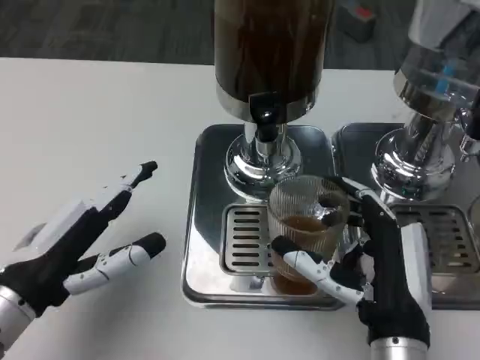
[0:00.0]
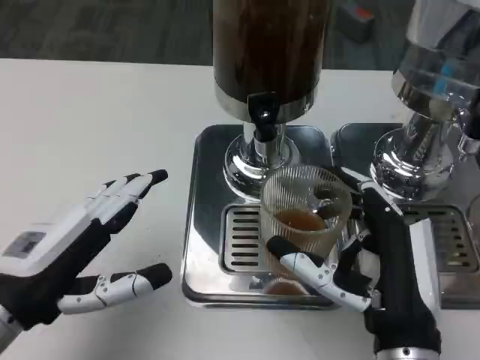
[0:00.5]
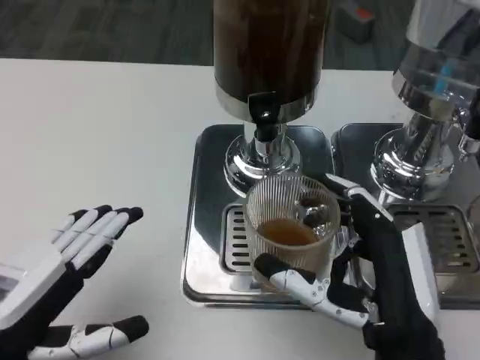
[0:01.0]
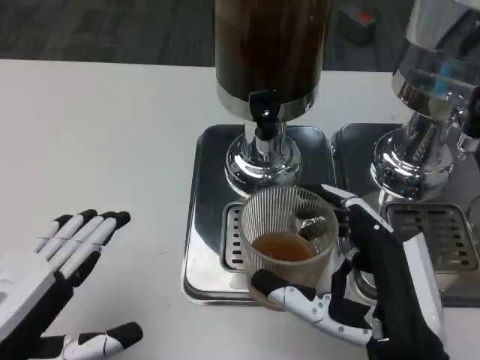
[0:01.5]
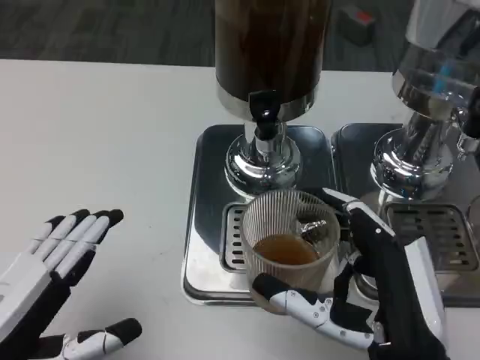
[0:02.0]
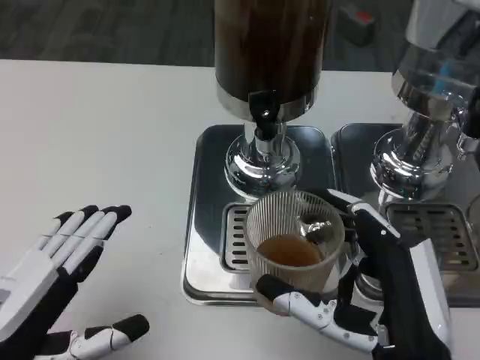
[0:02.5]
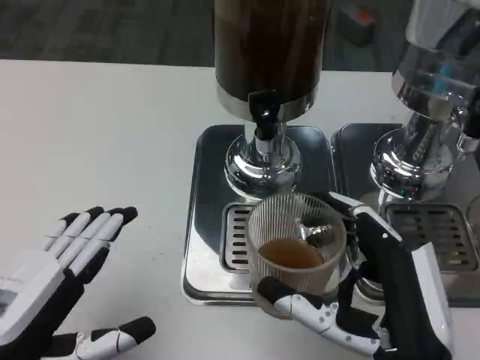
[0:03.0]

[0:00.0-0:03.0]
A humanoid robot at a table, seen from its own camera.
Task of the whole recording: Grasp the cup under the faucet to collect the drink, then remove the cup.
0:00.0 to 0:01.5: The right hand ends up approximately 5 cm from where it was. The left hand moves backward, some 10 cm.
0:01.5 to 0:03.0: The hands make only small movements.

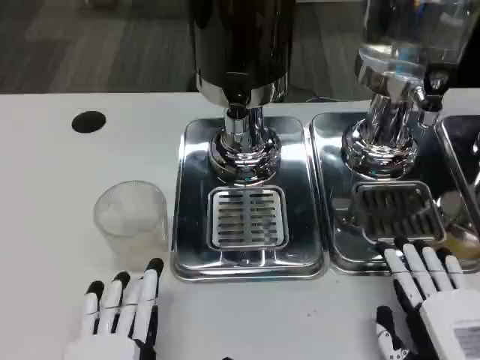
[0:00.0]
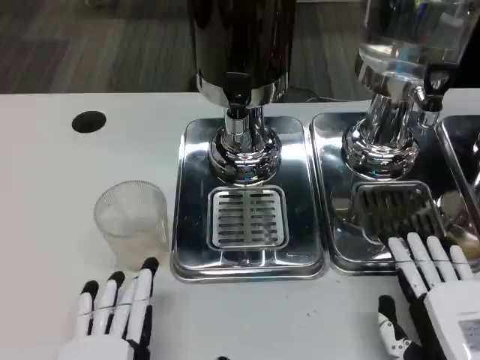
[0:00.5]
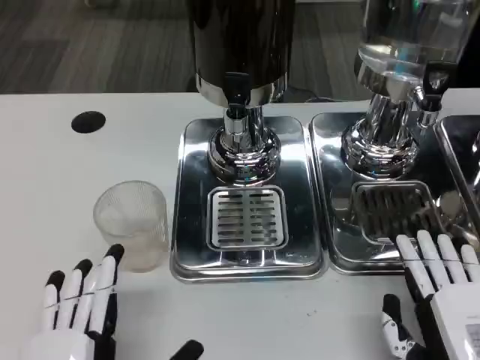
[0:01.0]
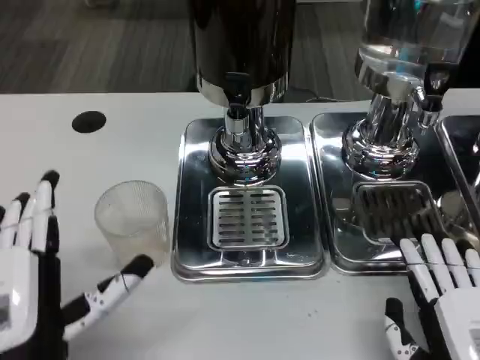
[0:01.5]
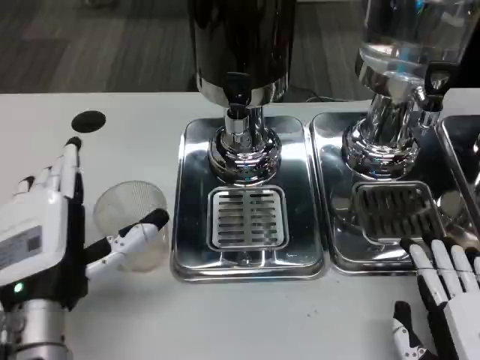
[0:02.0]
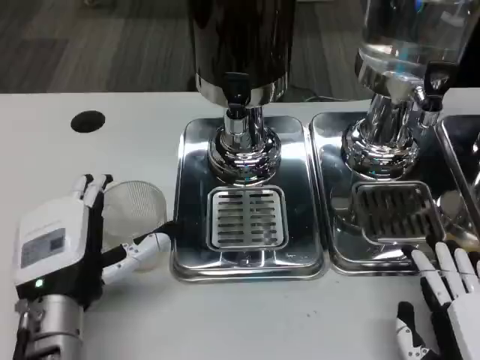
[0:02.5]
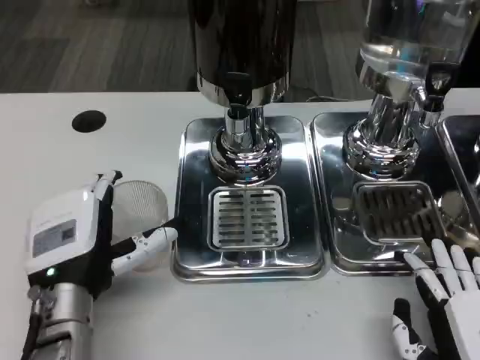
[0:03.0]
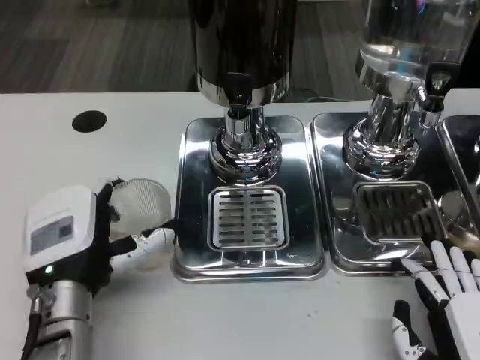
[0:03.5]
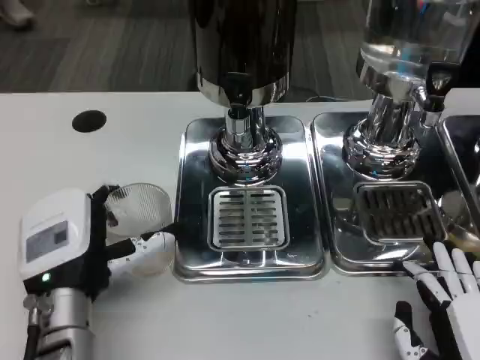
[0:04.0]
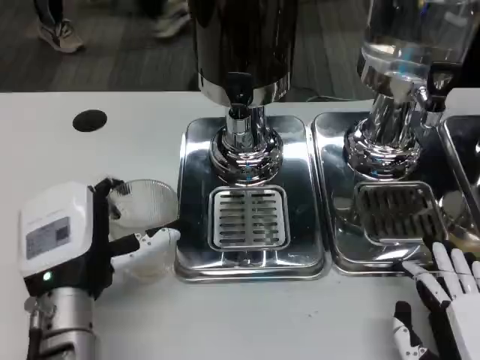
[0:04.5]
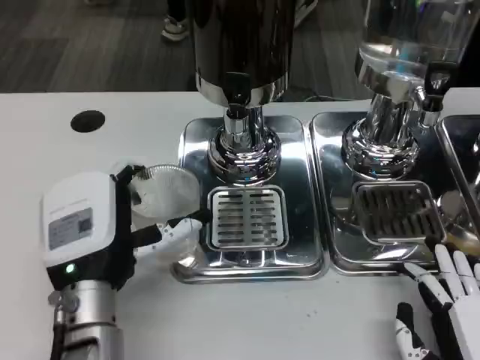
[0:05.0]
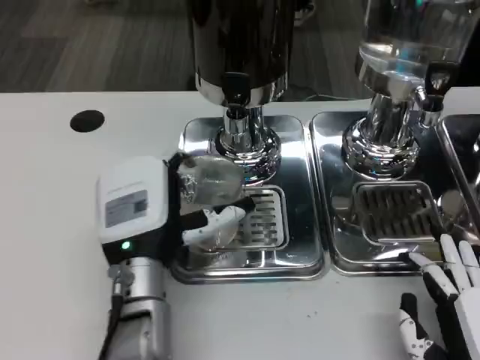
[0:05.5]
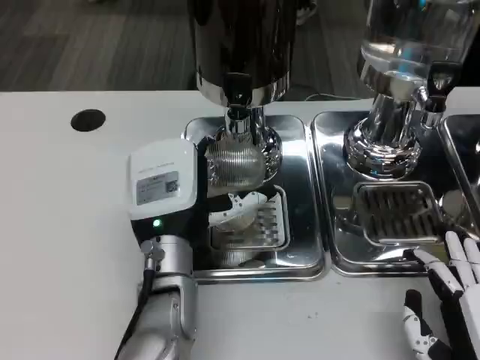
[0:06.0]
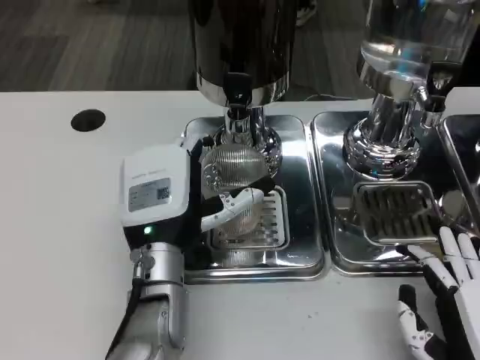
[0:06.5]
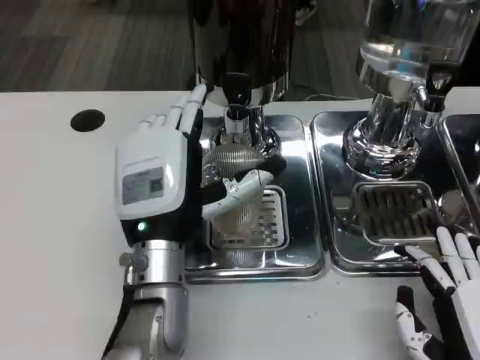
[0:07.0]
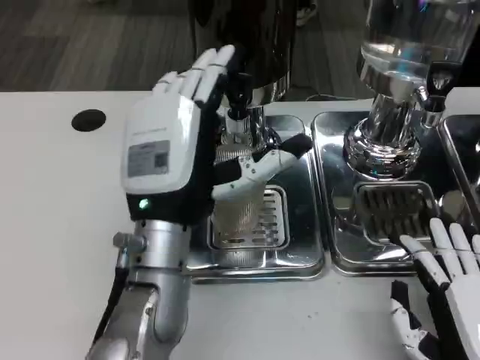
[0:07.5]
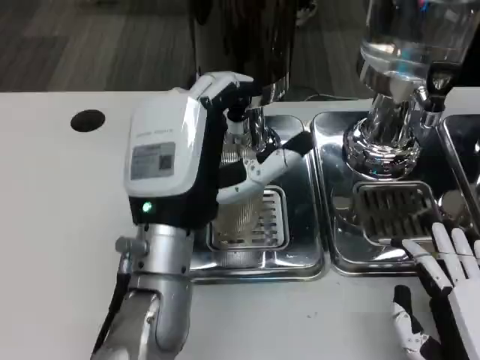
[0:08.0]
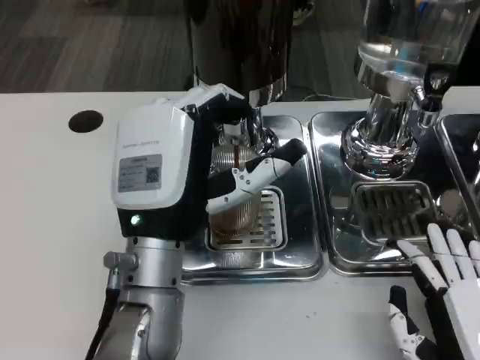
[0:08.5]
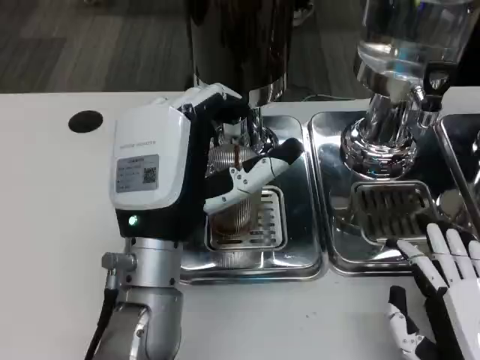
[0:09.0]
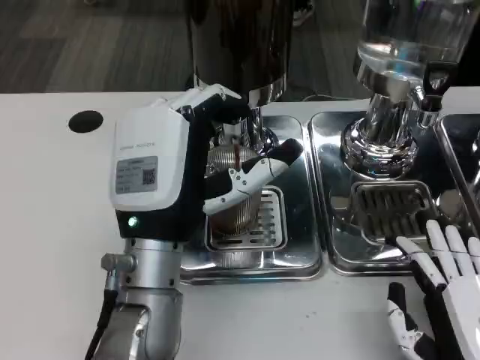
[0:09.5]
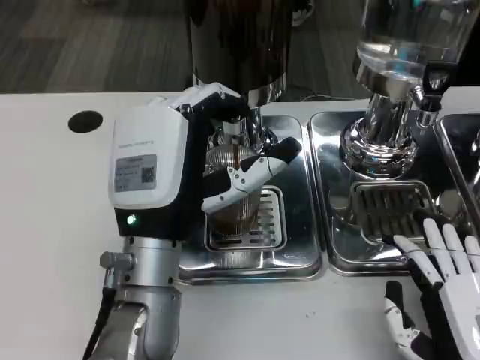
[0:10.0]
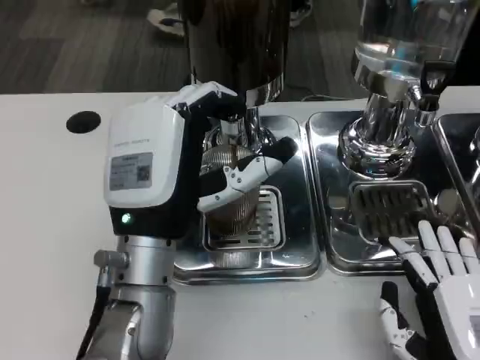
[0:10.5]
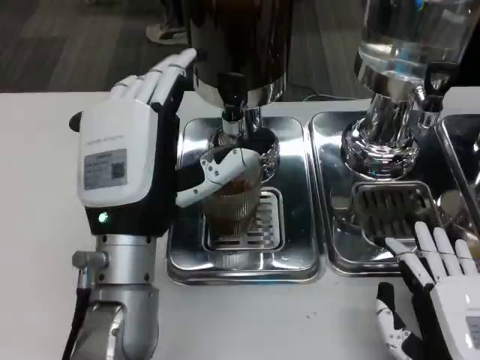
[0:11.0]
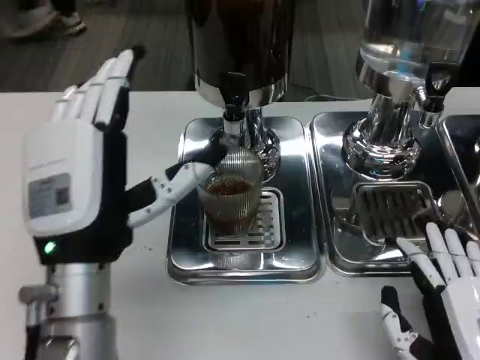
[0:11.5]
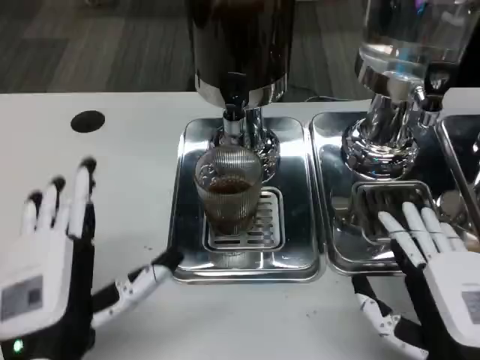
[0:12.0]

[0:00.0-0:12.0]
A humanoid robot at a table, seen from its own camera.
Task of the whole recording: Grasp the cup under the faucet to collect the drink, then remove the cup.
0:00.0 to 0:02.0: The left hand goes approximately 15 cm forward and upward.
0:02.0 to 0:04.0: The hands make only small movements.
0:04.0 to 0:06.0: The left hand goes roughly 10 cm to the right and forward.
0:06.0 to 0:08.0: The left hand goes roughly 5 cm upward.
0:10.0 to 0:12.0: The left hand moves backward and to the left, some 10 cm.

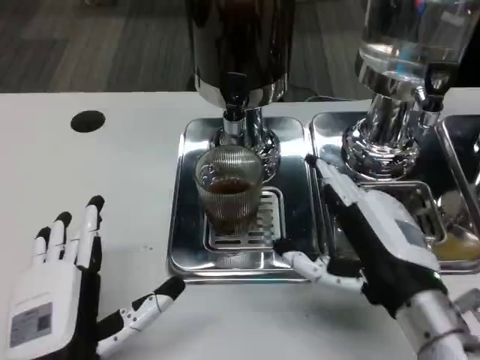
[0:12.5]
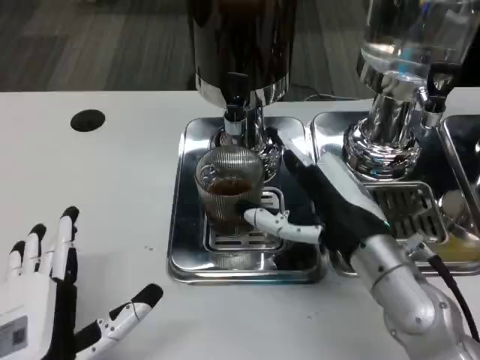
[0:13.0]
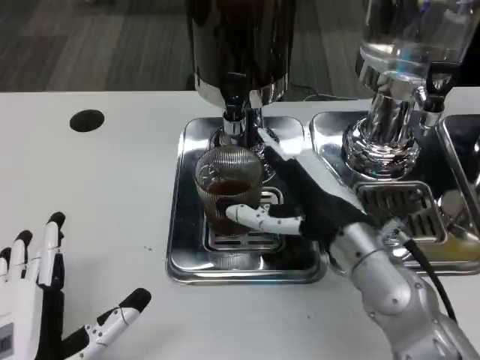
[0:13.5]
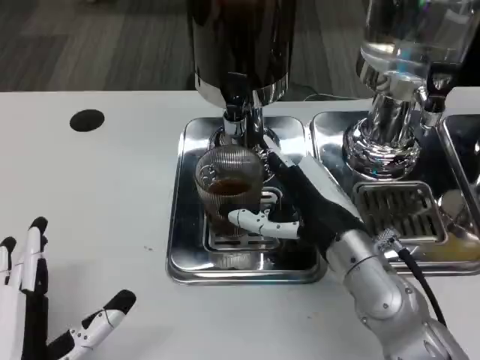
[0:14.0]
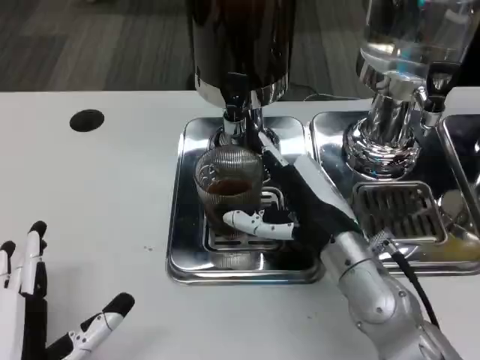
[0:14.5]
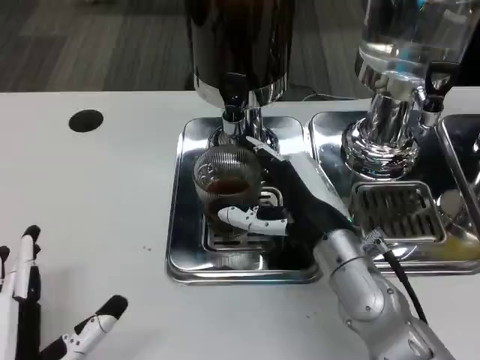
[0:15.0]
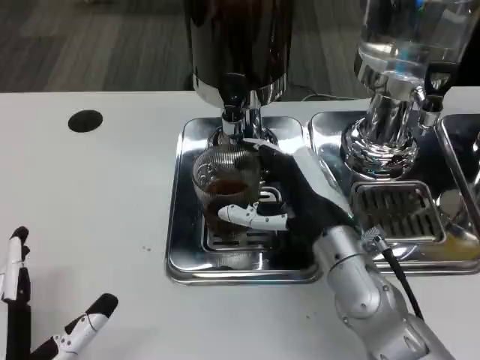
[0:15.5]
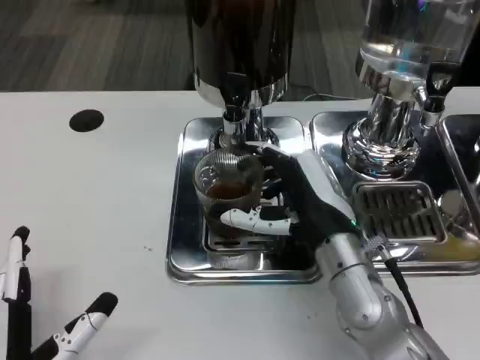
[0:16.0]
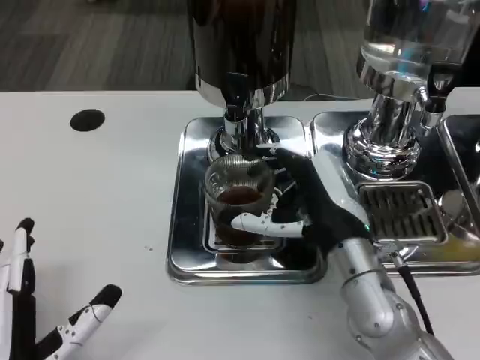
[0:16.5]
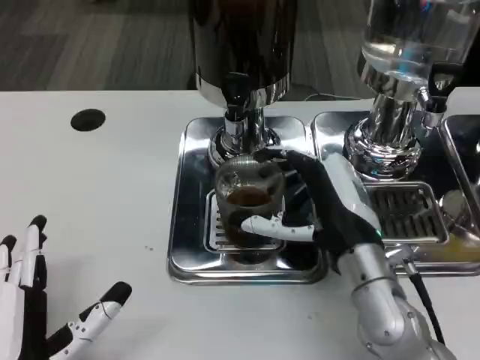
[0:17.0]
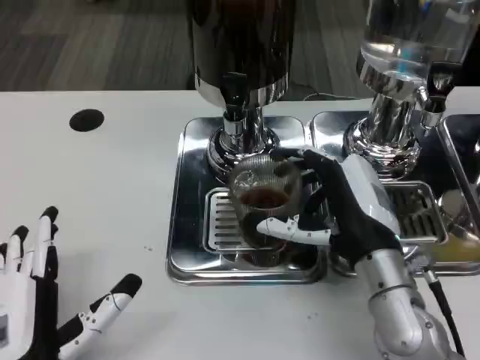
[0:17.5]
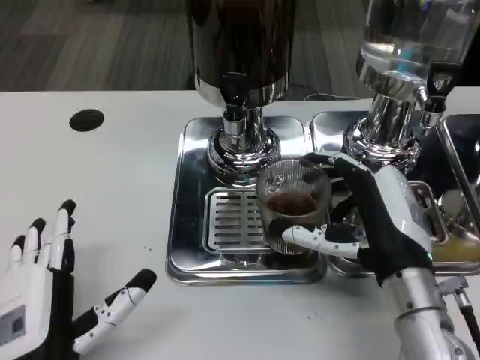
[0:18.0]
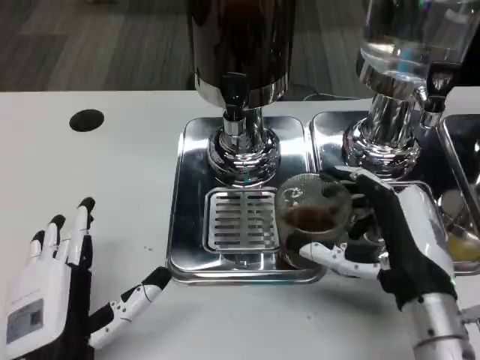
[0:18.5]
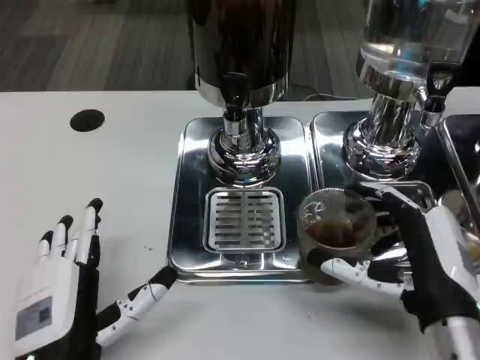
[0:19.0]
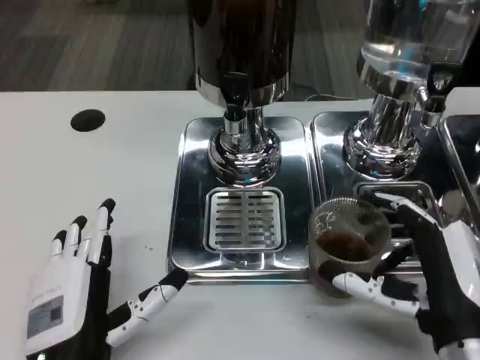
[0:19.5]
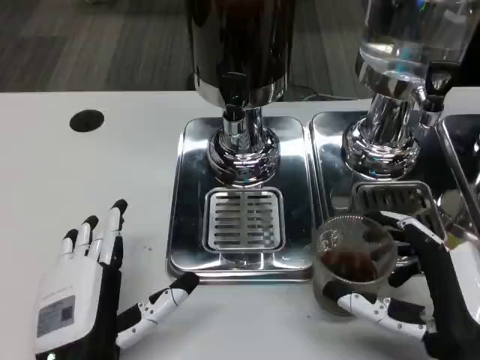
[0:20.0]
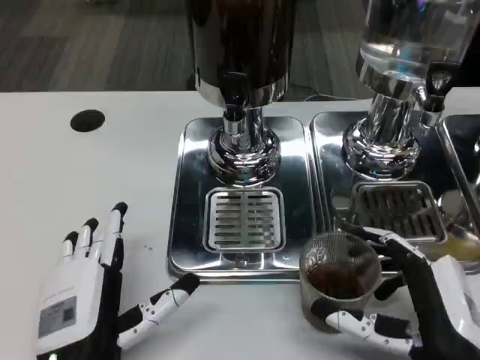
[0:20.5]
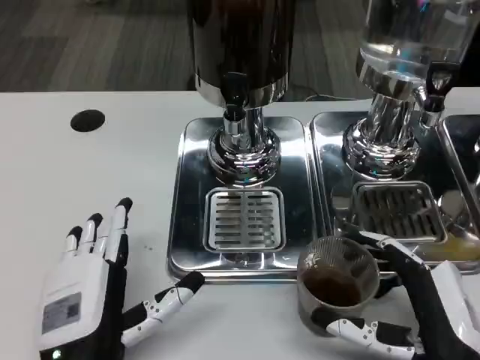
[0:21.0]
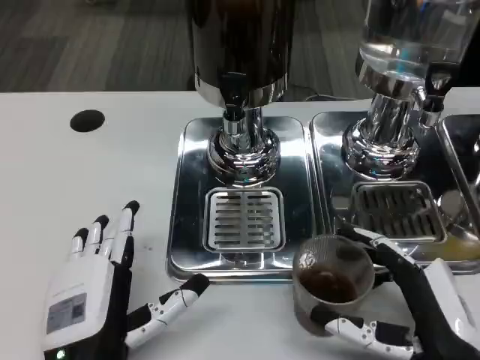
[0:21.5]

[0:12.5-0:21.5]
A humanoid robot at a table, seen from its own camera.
Task of the whole recording: Grasp the cup under the faucet to collect the drink, then remove the cup.
0:12.5 to 0:14.5: The right hand travels forward and to the left by about 10 cm.
0:14.5 to 0:17.0: The hands make only small movements.
0:17.0 to 0:19.5: The right hand is displaced backward and to the right by roughly 10 cm.

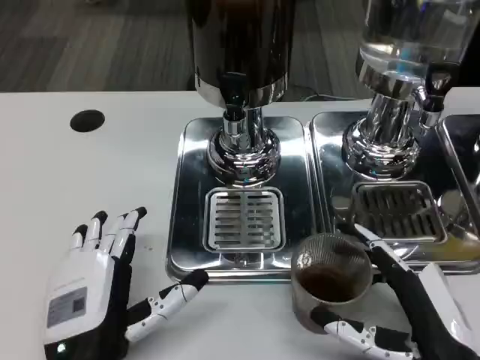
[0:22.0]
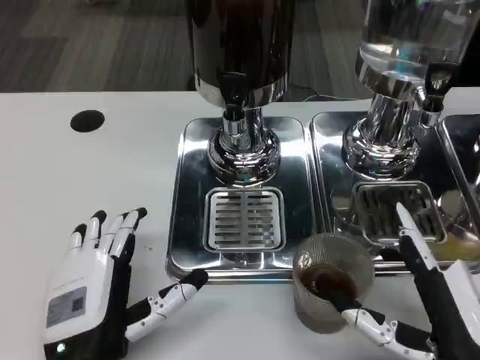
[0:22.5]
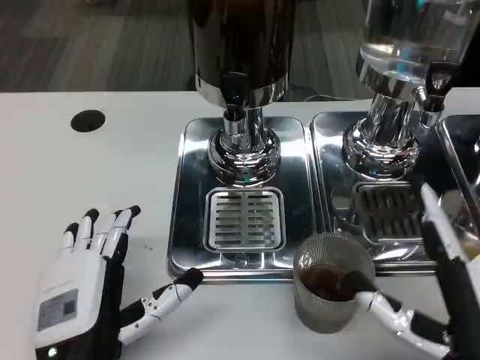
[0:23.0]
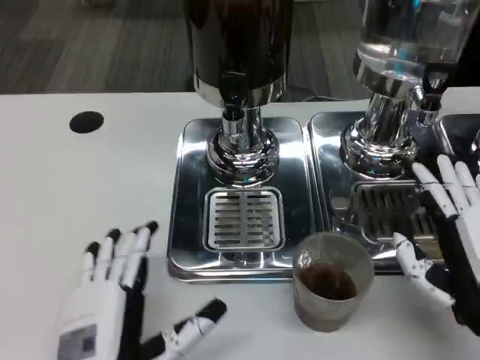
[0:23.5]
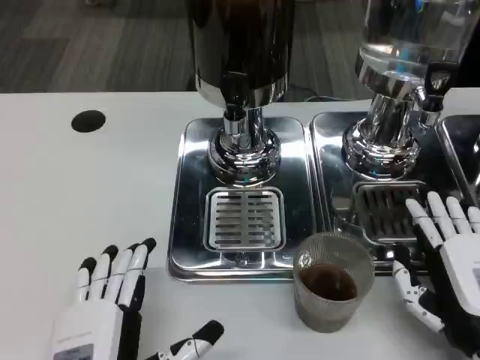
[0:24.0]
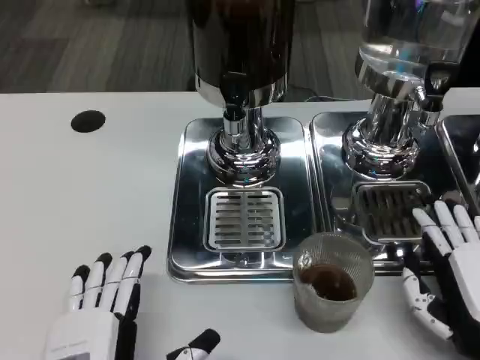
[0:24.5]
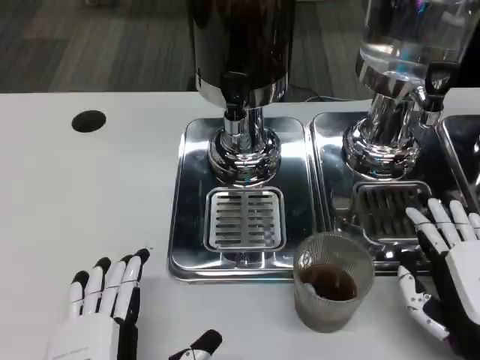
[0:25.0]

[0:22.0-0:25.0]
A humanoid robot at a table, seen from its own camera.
Task of the whole recording: Grasp the cup under the faucet to collect the drink, then remove the cup.
0:22.0 to 0:23.5: The right hand ends up about 5 cm from where it was.
0:23.5 to 0:25.0: The hands move only a little.
